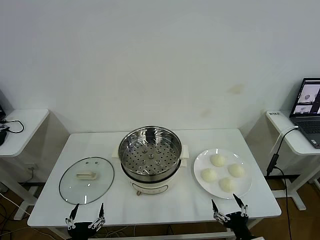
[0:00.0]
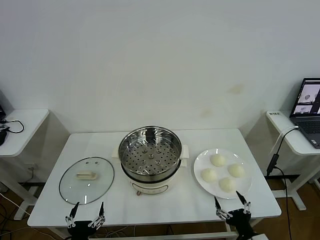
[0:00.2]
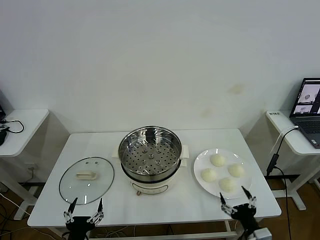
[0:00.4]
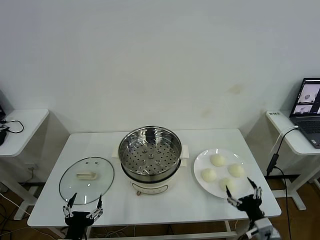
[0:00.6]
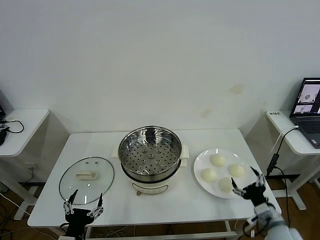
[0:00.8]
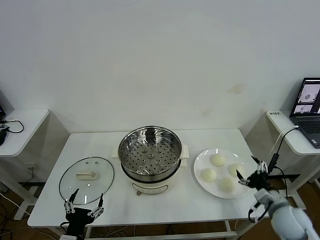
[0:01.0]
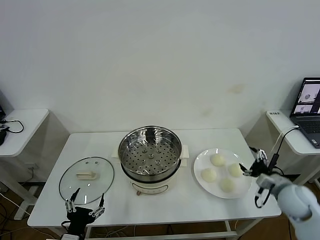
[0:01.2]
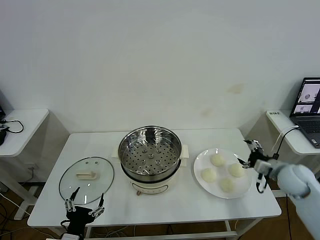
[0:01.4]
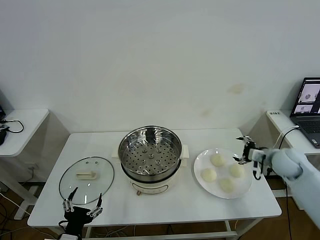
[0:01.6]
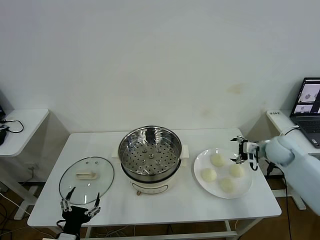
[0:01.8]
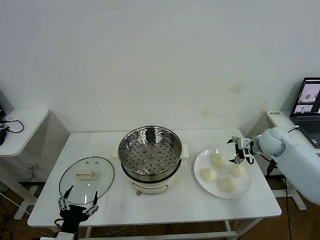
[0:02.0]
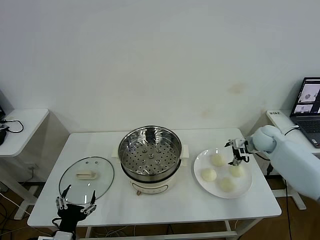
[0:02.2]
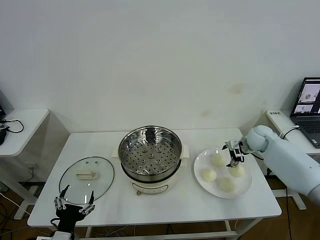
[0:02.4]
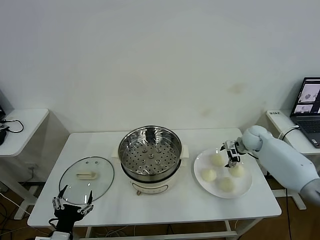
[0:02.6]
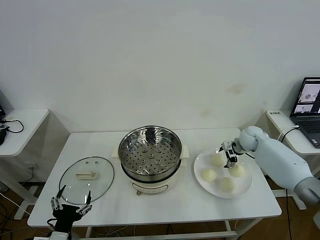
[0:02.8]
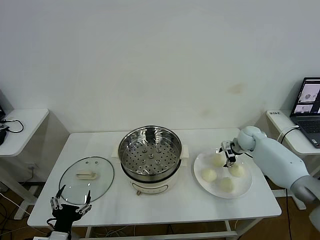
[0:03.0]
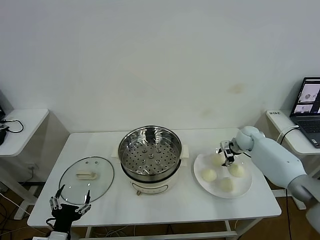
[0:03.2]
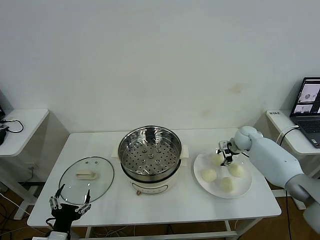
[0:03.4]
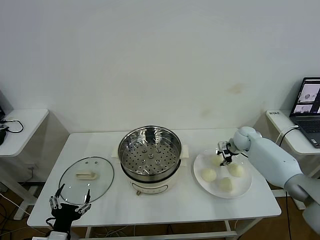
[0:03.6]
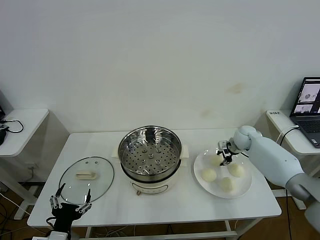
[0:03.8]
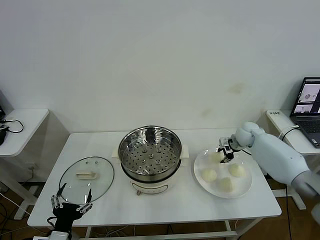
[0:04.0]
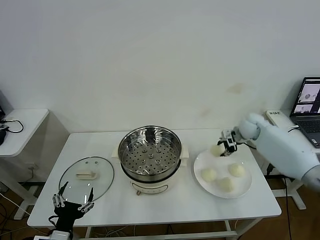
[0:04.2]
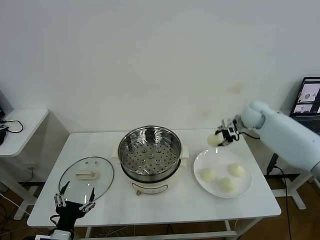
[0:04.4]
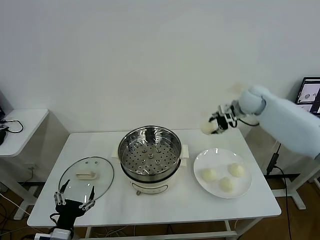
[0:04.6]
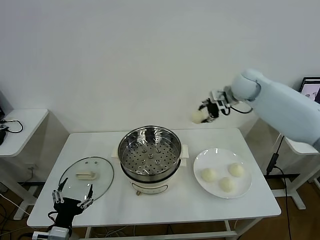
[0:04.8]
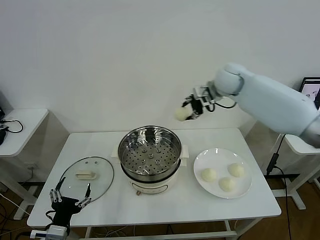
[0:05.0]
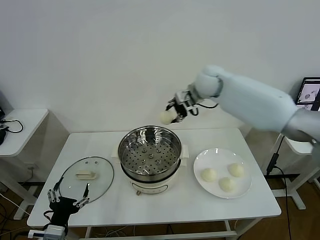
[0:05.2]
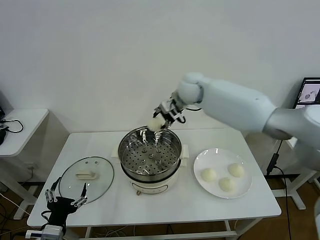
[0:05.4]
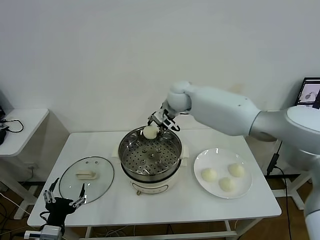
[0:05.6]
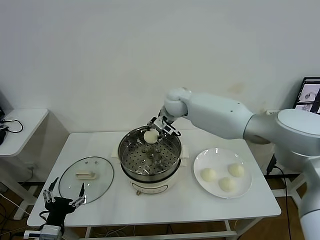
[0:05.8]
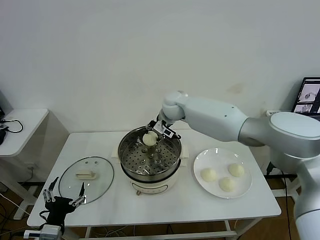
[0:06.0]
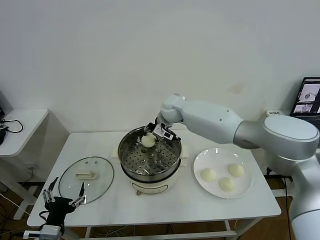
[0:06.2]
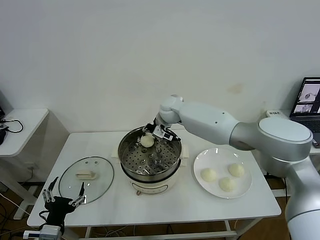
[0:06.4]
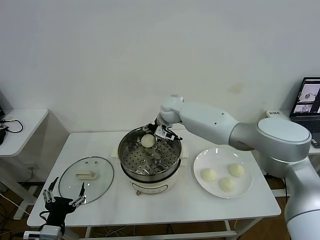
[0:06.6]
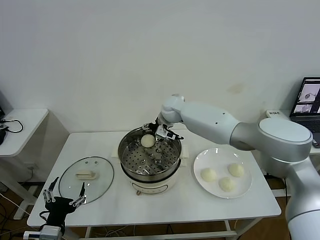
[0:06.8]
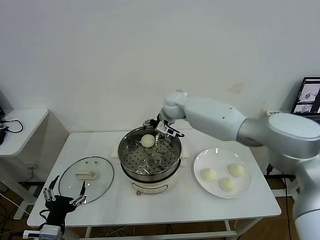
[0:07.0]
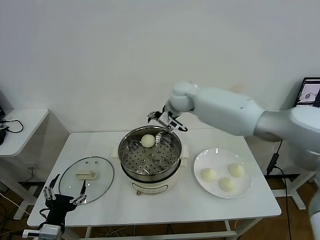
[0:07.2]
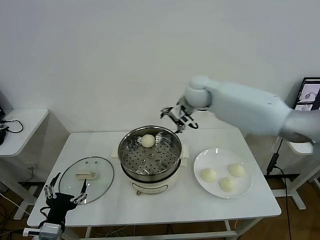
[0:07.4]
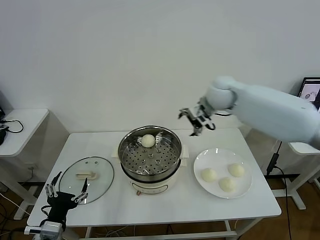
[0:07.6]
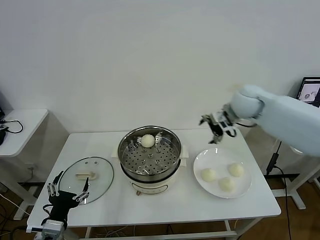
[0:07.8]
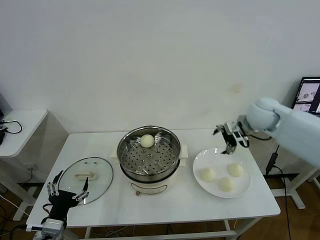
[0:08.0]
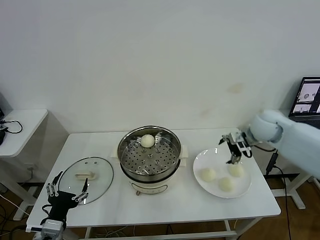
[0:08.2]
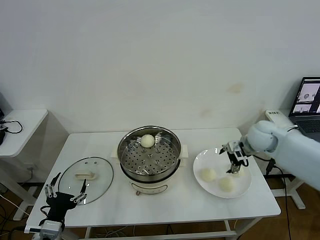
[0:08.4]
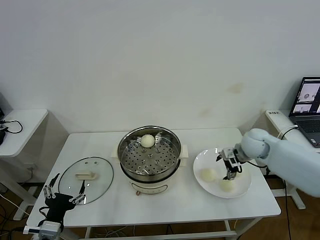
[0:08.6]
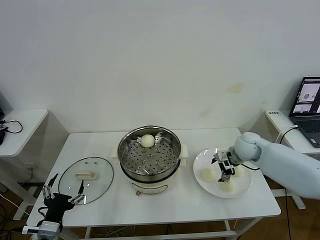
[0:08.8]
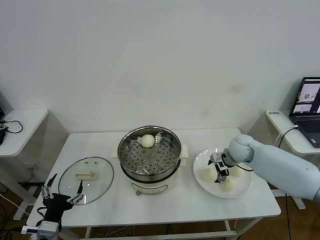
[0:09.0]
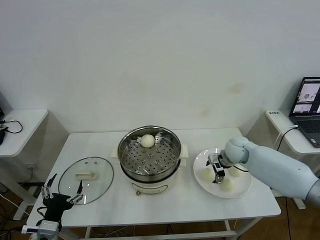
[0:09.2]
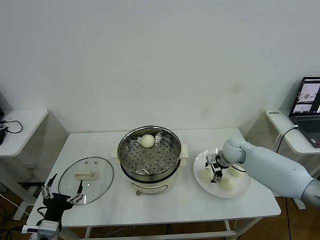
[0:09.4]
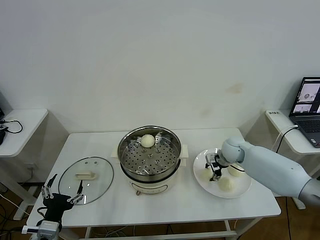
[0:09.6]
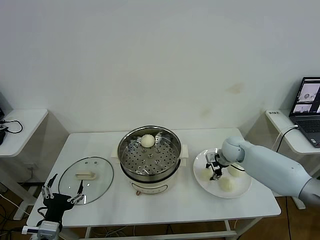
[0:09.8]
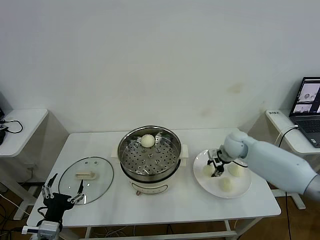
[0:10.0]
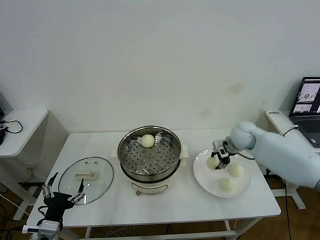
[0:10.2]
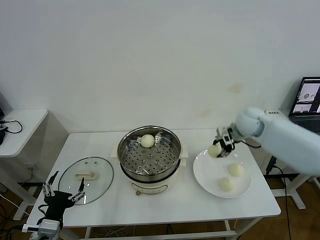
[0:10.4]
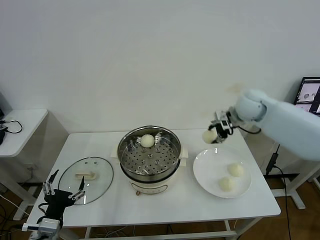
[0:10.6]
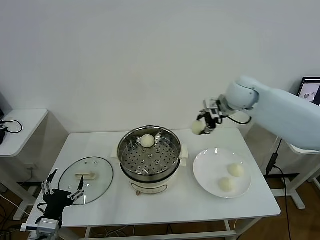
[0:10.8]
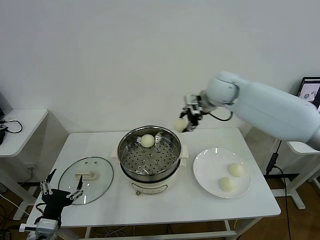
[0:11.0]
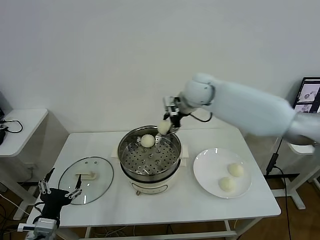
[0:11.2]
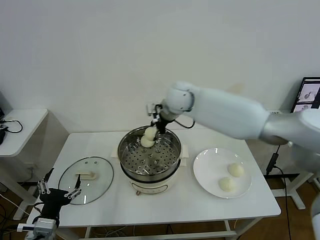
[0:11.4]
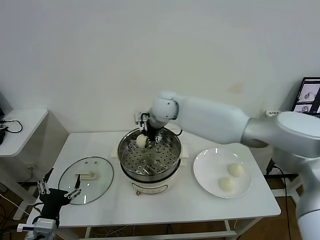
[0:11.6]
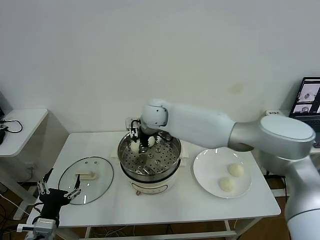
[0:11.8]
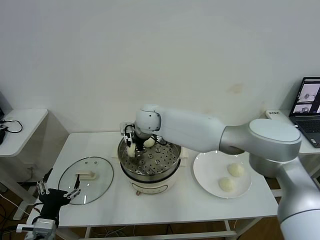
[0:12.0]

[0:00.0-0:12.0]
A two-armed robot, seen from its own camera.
Task of the whole recording: take steamed baozi put them in steamer then cover it.
Step, 0:00.0 to 0:03.6: Grasp the baozi in the plate with right gripper.
Step, 0:03.8 to 0:06.8: Place the baozi on the steamer with right gripper.
Step, 0:07.0 to 0:09.6: Grasp the baozi in the plate with right gripper.
0:01.6 to 0:03.0: The right gripper shifts some 15 cm forward.
0:03.0 to 0:04.4: The right gripper shifts some 15 cm upward, and closes its fingers.
0:04.4 to 0:06.0: The right gripper travels to the left by some 30 cm.
0:06.0 to 0:07.6: The right gripper goes about 15 cm to the right and upward, and opens.
0:07.6 to 0:09.0: The right gripper travels downward and to the right by about 25 cm.
0:09.0 to 0:10.4: The right gripper is displaced upward by about 10 cm, and closes its fingers.
0:10.4 to 0:12.0: The right gripper is displaced to the left by approximately 35 cm.

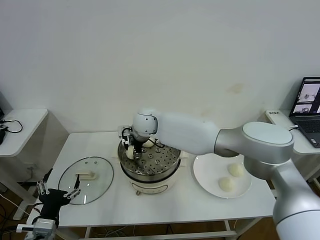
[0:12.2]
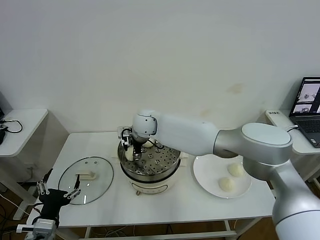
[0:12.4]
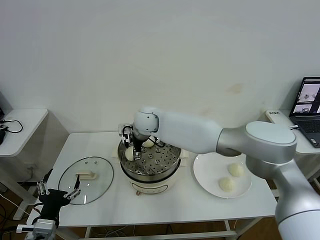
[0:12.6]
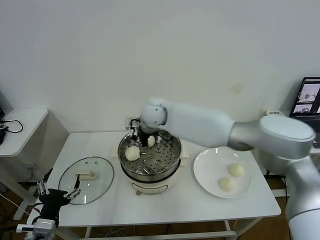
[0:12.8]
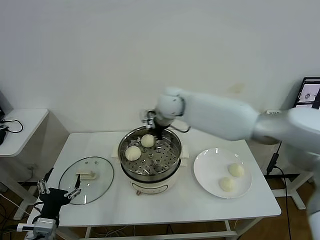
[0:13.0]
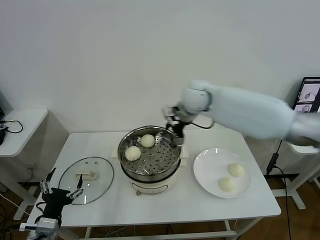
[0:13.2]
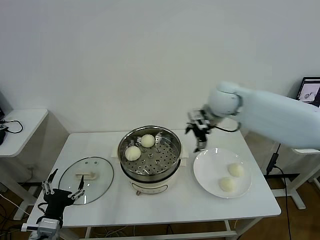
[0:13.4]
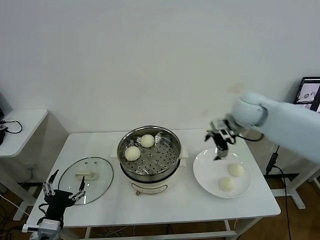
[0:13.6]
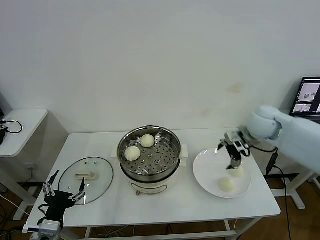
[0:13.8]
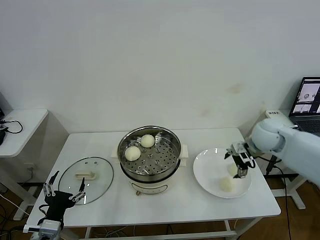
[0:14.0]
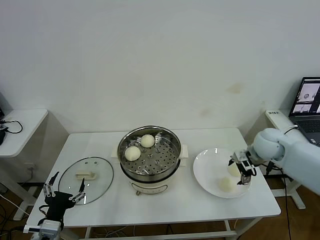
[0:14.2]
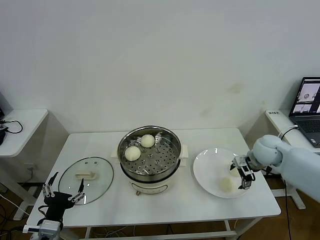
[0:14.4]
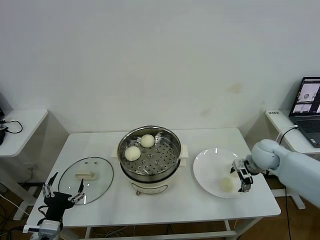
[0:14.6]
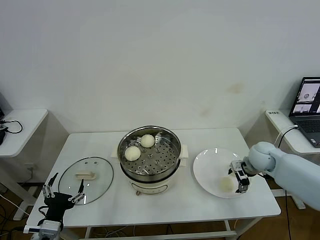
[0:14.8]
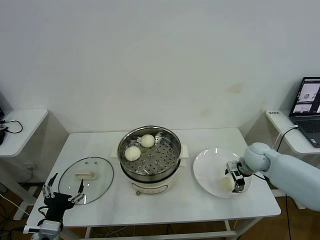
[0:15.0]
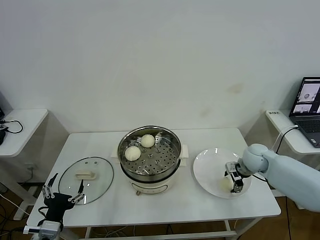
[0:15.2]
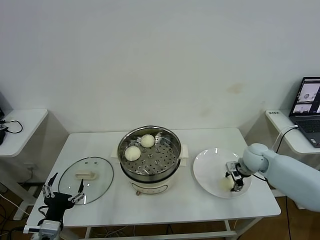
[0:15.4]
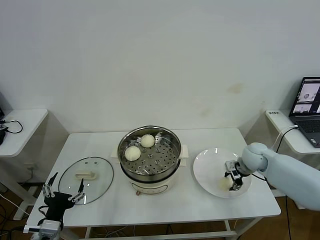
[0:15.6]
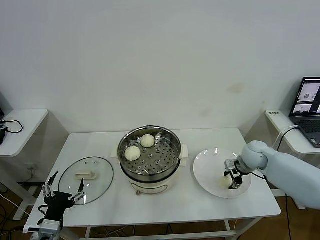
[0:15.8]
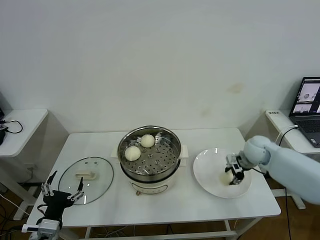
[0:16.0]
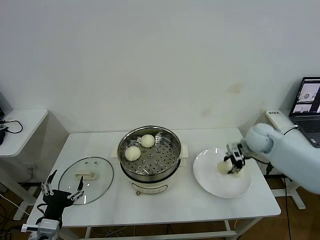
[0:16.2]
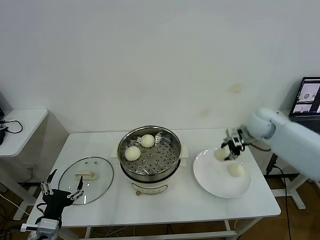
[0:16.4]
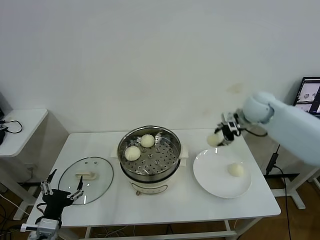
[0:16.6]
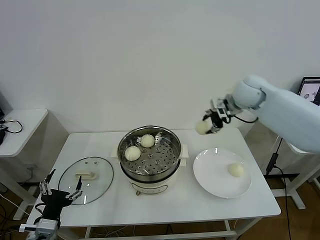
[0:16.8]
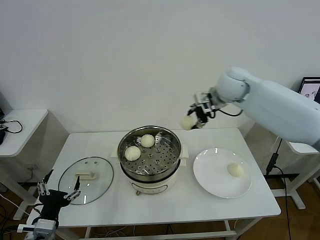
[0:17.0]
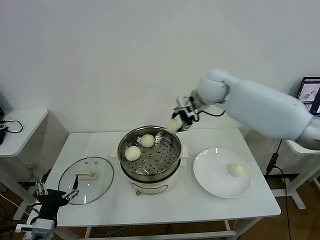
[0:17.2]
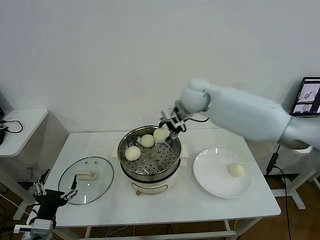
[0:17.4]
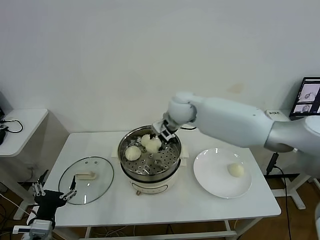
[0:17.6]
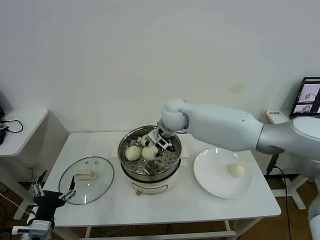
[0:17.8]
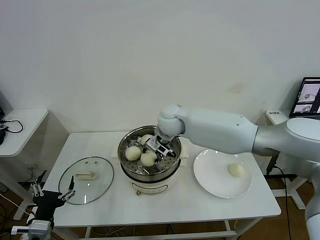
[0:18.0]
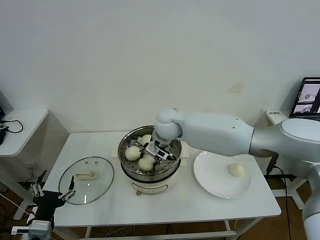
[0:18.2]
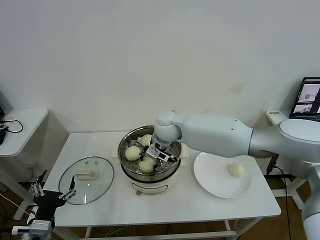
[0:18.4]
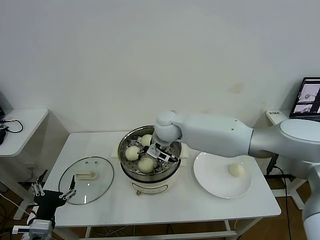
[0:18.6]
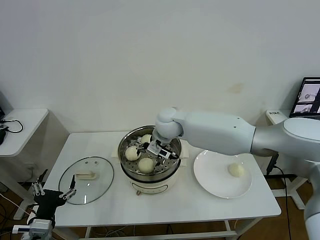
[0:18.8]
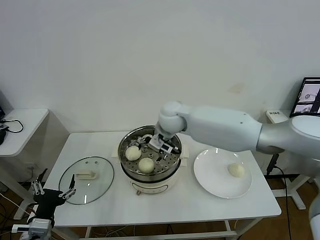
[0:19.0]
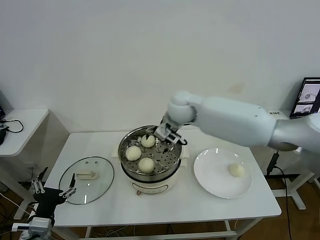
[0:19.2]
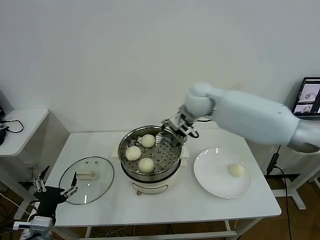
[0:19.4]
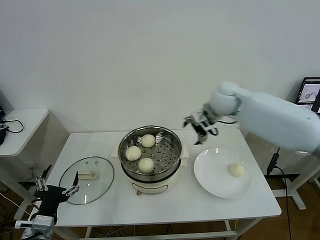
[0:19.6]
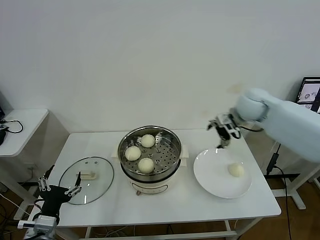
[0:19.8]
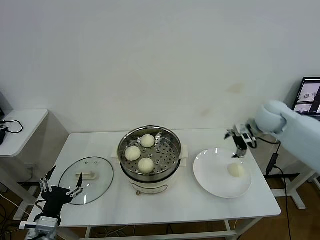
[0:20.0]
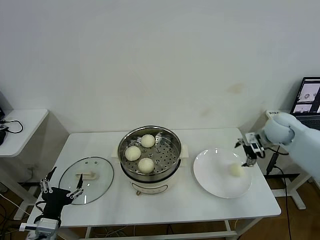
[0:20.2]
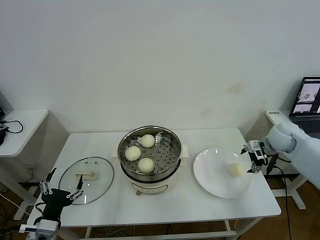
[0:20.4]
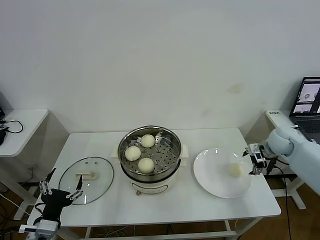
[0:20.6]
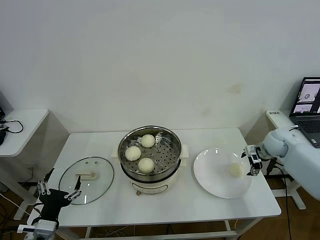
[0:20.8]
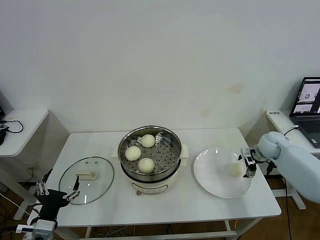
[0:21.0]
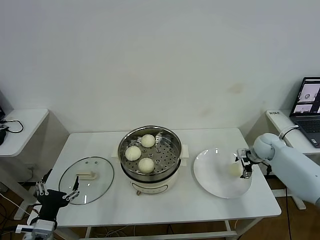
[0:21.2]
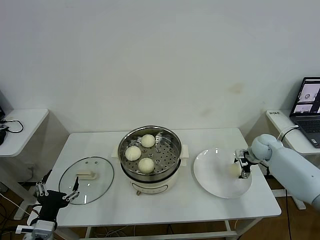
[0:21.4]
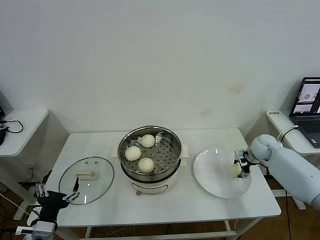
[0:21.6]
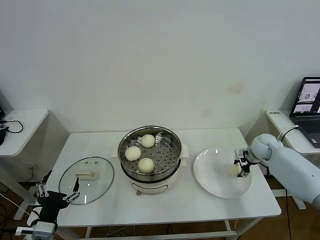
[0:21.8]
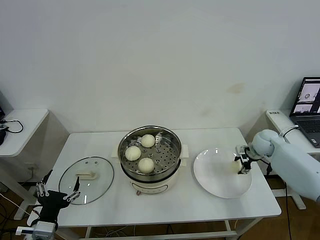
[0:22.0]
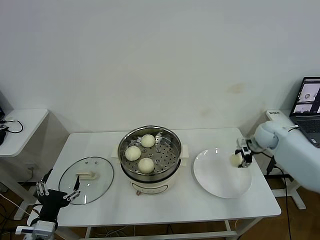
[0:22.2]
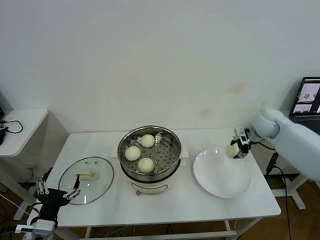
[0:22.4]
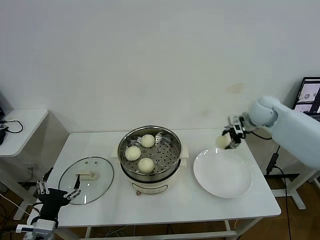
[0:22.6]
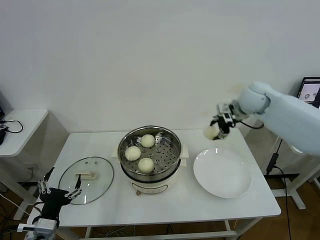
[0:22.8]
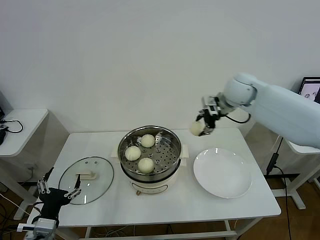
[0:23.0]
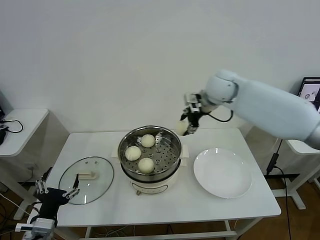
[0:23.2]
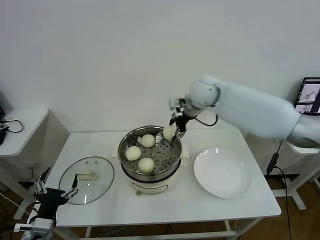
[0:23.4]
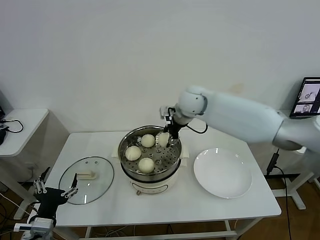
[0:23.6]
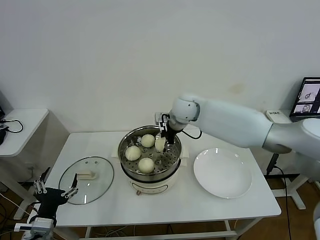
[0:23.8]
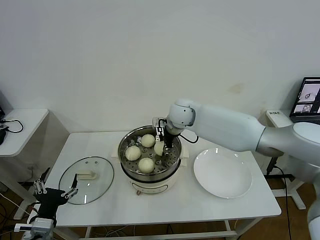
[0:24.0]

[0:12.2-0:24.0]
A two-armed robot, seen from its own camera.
Task of the whole recording: take steamed baozi put them in steamer then cover it.
Step, 0:13.0 to 0:15.4: Grasp the baozi in the plate with right gripper.
Step, 0:15.6 to 0:18.8: Place the baozi on the steamer with right gripper.
Step, 0:19.0 to 0:21.6: Grasp the baozi in the plate with right gripper.
0:12.2 to 0:13.6: The right gripper shifts approximately 30 cm to the right, and opens its fingers.
0:13.6 to 0:15.2: The right gripper travels downward and to the right by roughly 20 cm.
0:15.2 to 0:16.6: The right gripper goes approximately 20 cm upward, and closes its fingers.
0:16.6 to 0:18.2: The right gripper is displaced to the left by about 30 cm.
0:18.2 to 0:19.6: The right gripper shifts about 20 cm to the right and upward, and opens its fingers.
0:19.6 to 0:21.0: The right gripper shifts approximately 30 cm to the right and downward.
0:21.0 to 0:22.6: The right gripper shifts some 15 cm upward and to the left, and closes up.
0:22.6 to 0:24.0: The right gripper travels to the left by some 25 cm.
